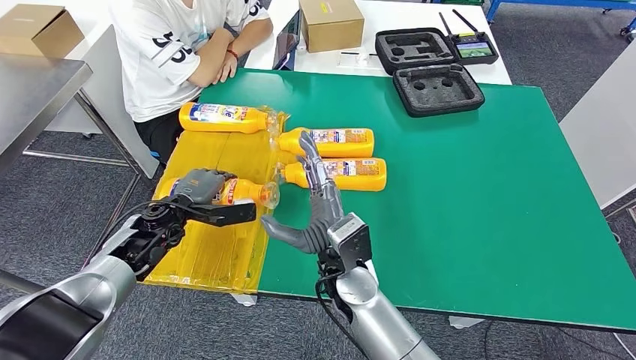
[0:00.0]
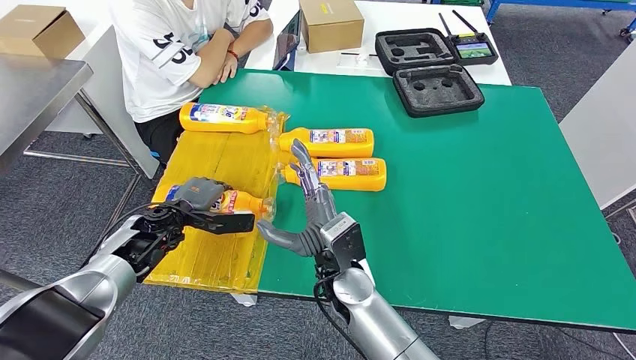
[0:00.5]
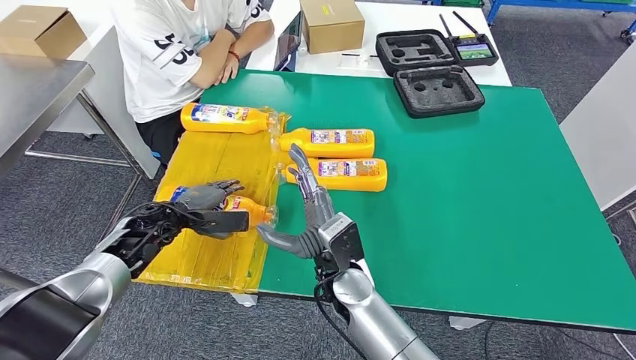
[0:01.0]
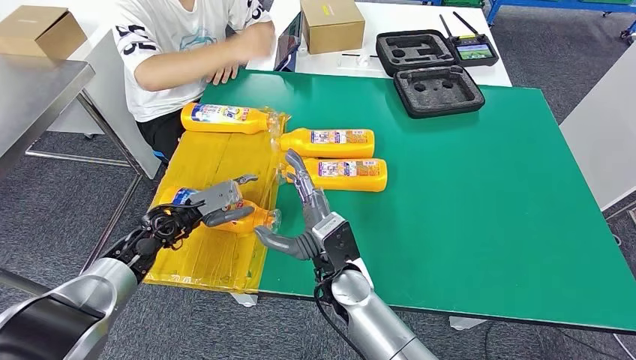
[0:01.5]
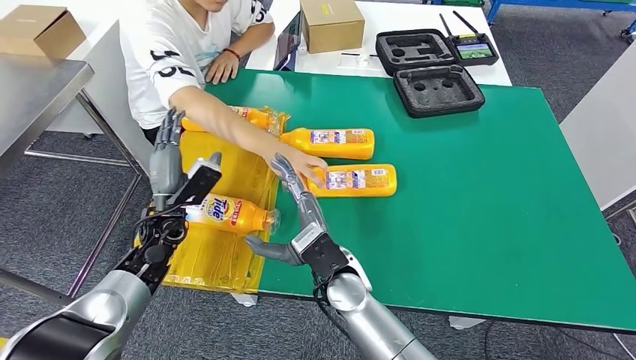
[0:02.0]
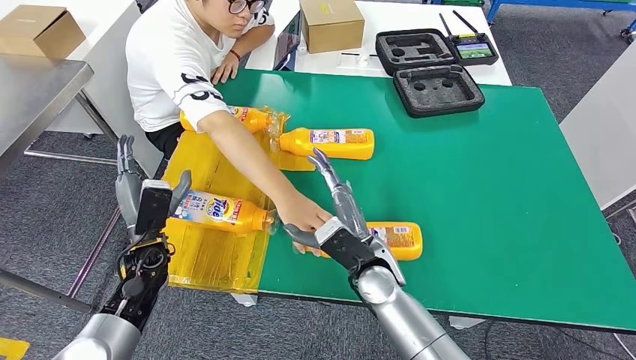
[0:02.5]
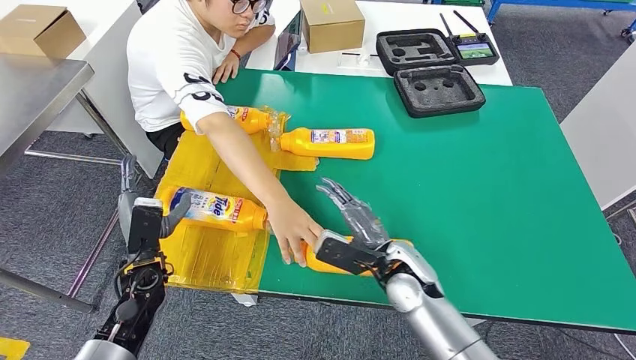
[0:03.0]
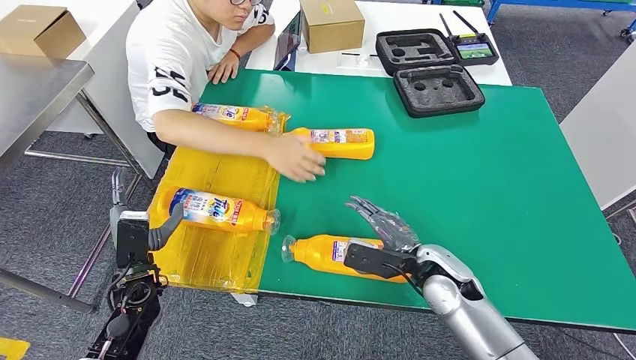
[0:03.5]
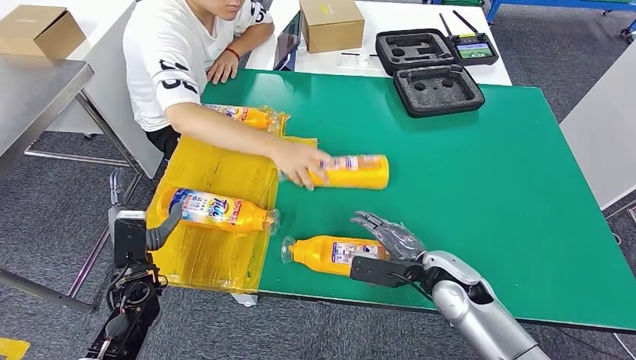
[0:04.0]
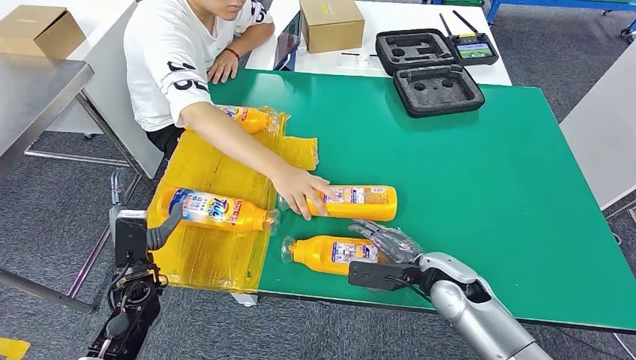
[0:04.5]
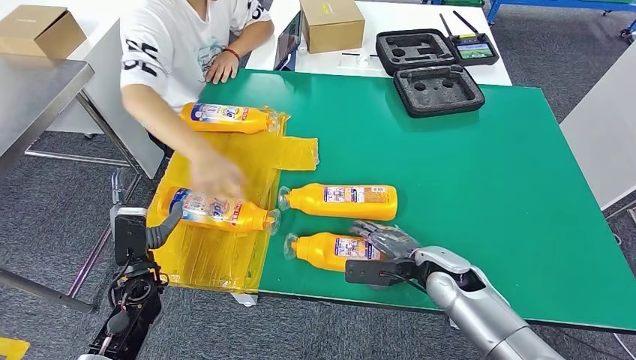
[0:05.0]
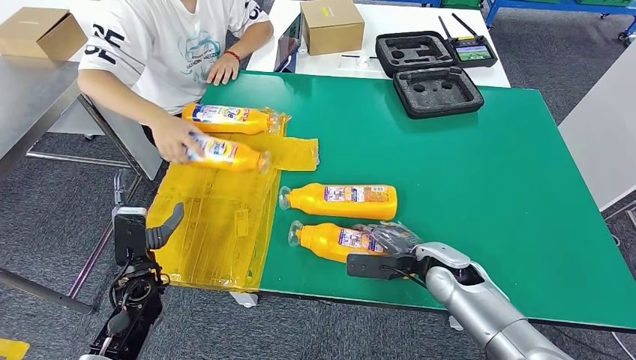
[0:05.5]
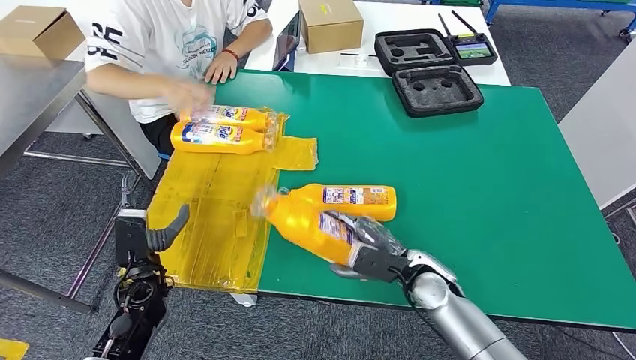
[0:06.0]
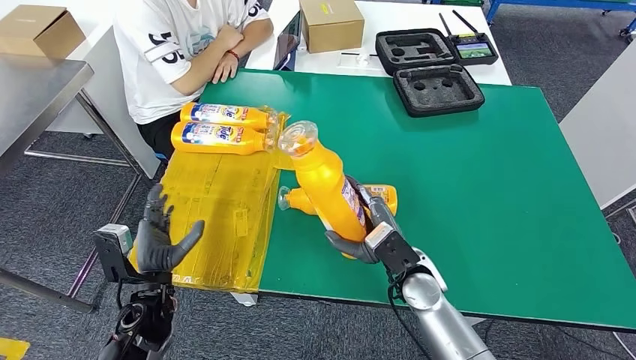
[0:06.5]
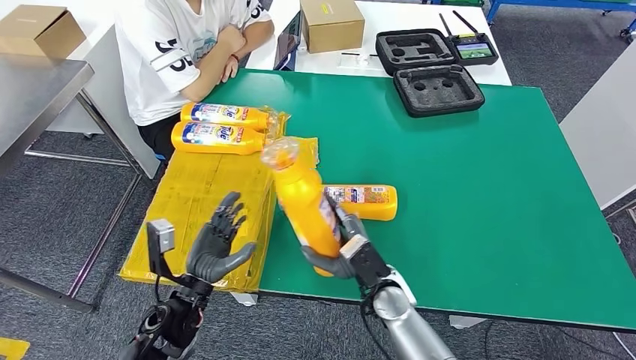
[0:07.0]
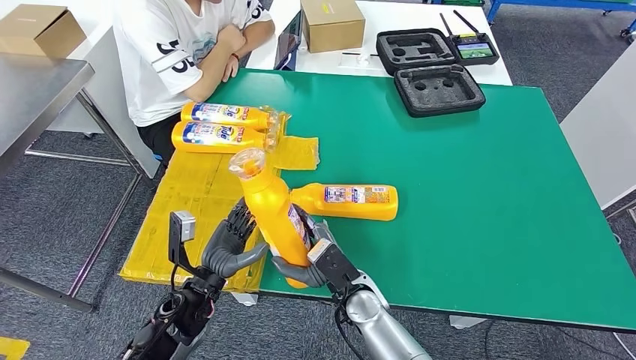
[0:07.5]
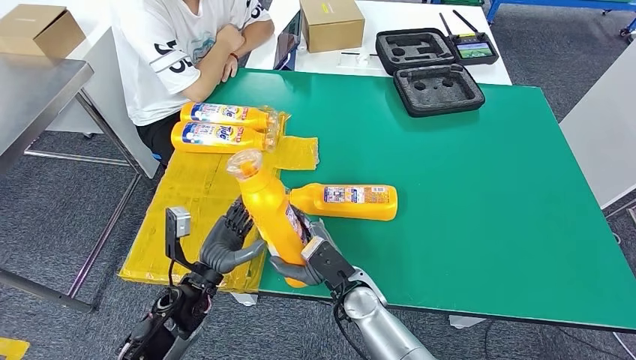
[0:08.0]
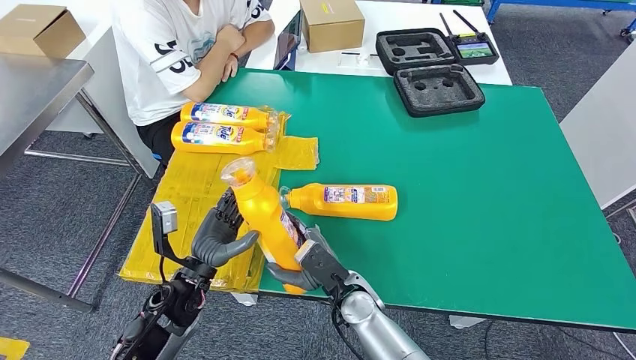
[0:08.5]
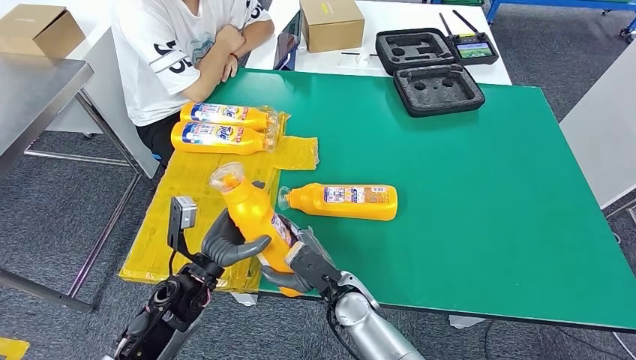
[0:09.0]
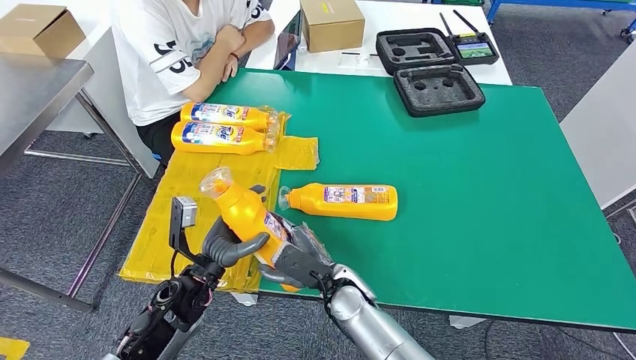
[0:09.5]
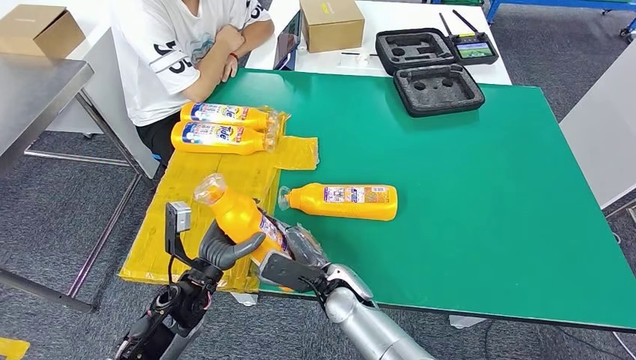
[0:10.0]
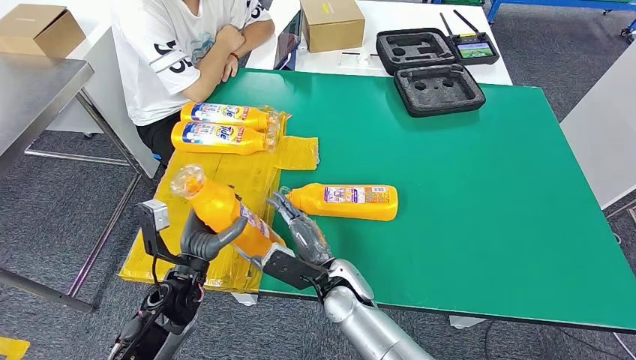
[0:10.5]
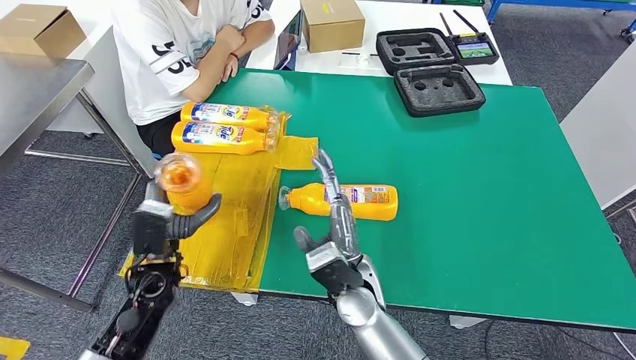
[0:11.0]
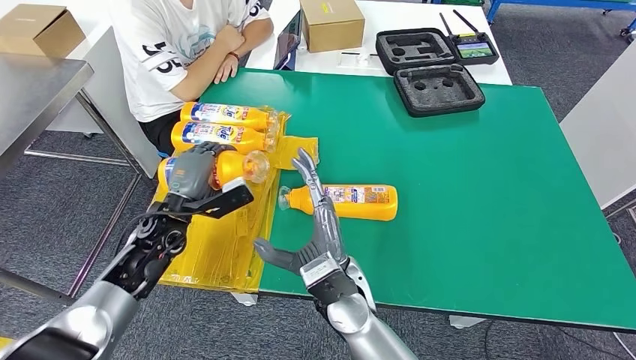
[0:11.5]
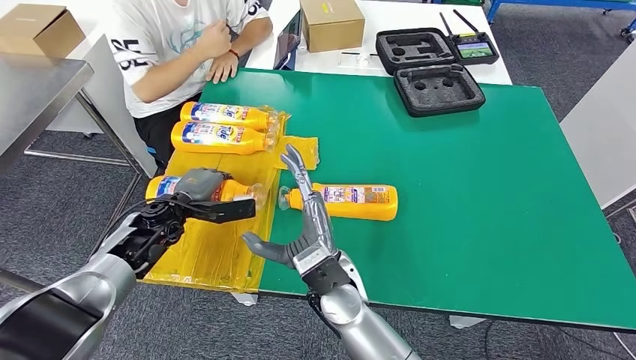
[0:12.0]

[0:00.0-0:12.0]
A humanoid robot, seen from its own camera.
Step, 0:00.0 to 0:02.0: Flip the fast-moving consumer goods bottle to the front side.
Step, 0:02.5 to 0:08.0: Pick up the fast-moving consumer goods bottle from the table.
0:10.0 to 0:12.0: The right hand is displaced upward by roughly 10 cm. Meanwhile the left hand heads forward and to the left, covering roughly 15 cm.

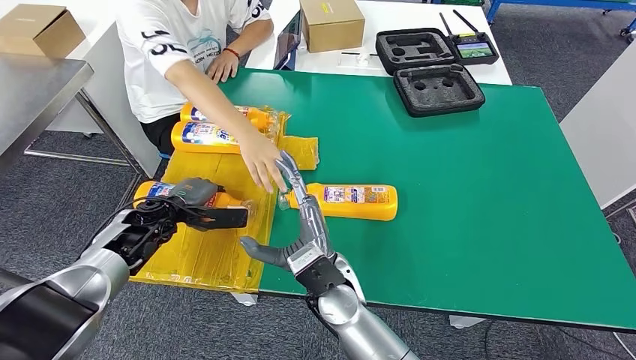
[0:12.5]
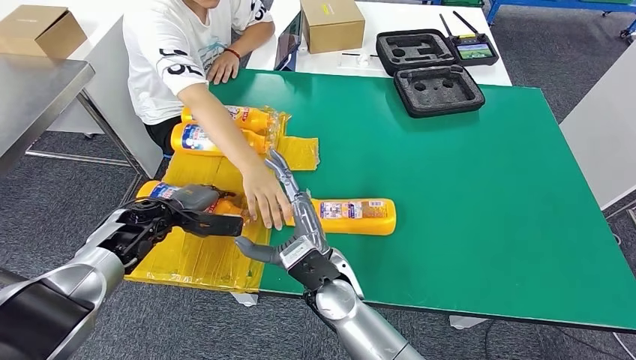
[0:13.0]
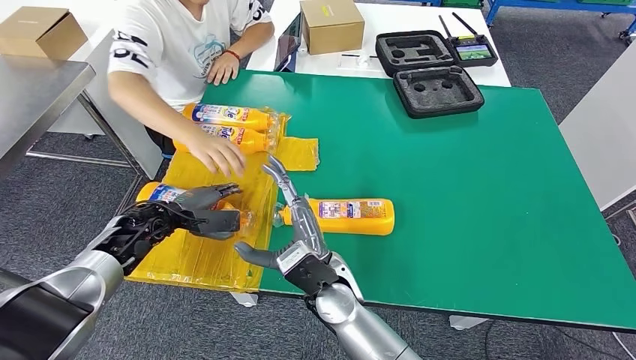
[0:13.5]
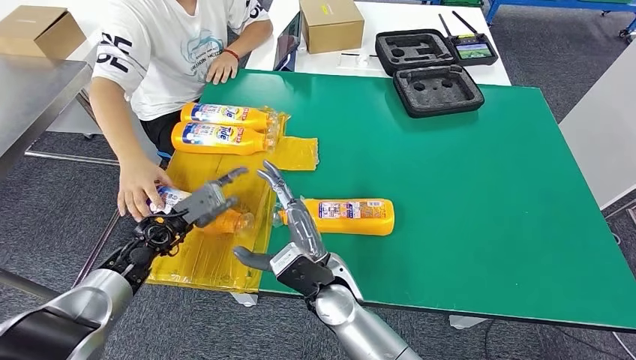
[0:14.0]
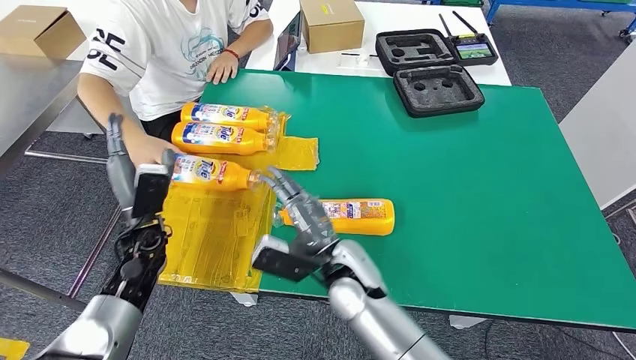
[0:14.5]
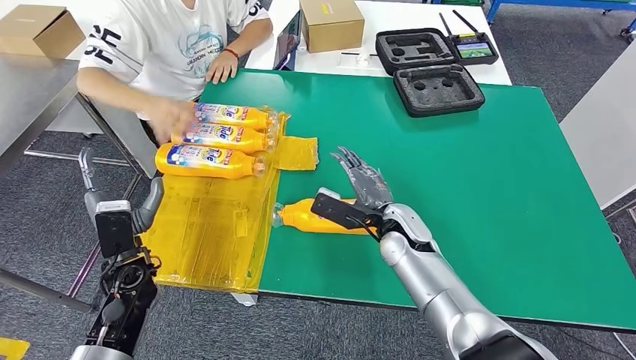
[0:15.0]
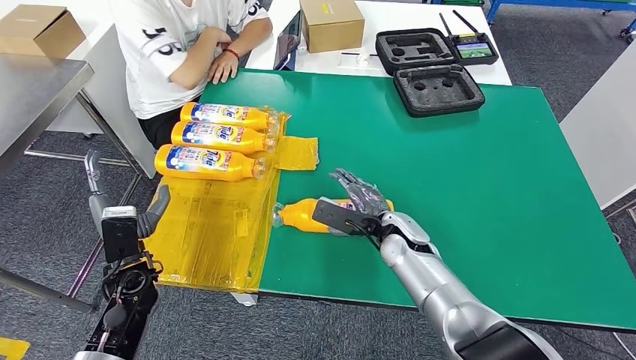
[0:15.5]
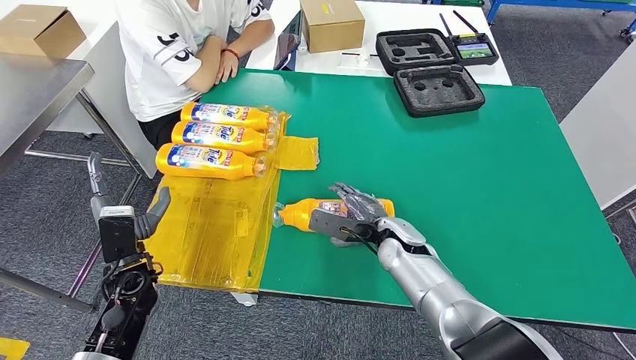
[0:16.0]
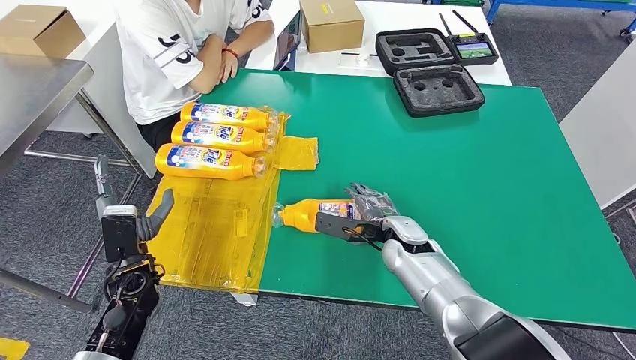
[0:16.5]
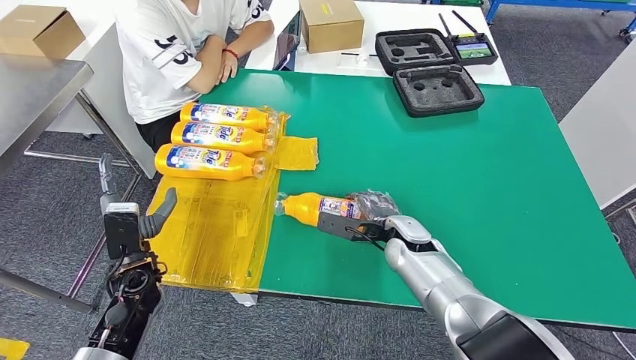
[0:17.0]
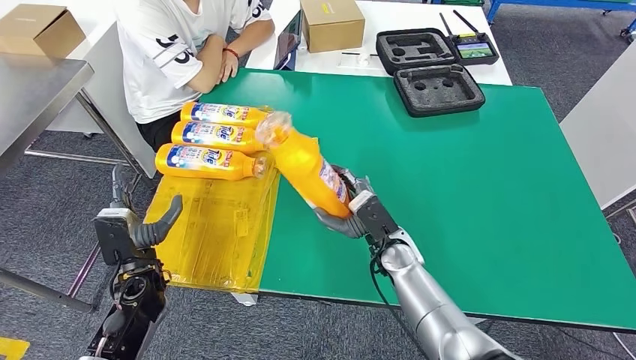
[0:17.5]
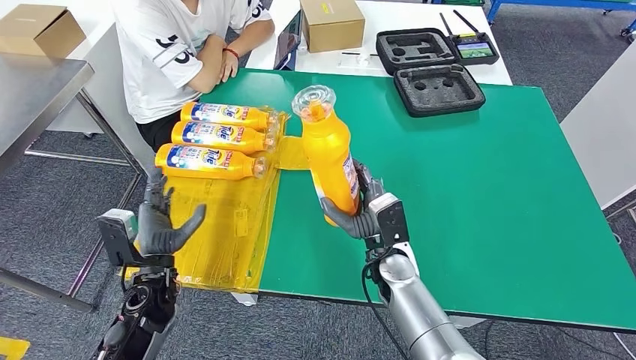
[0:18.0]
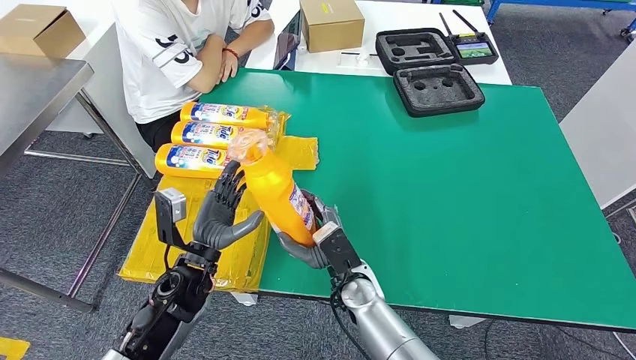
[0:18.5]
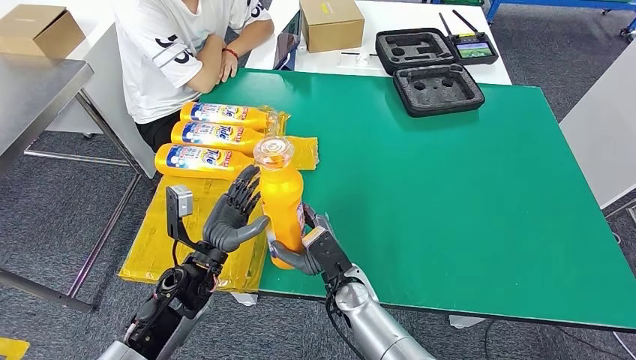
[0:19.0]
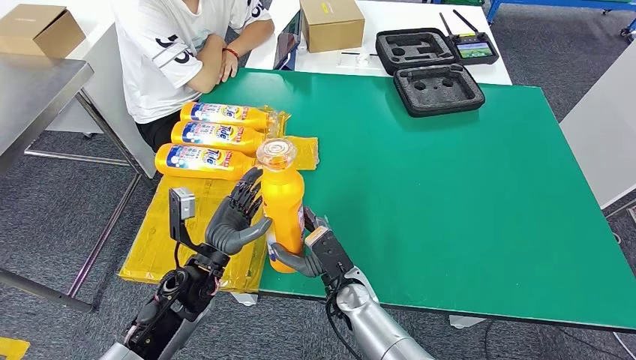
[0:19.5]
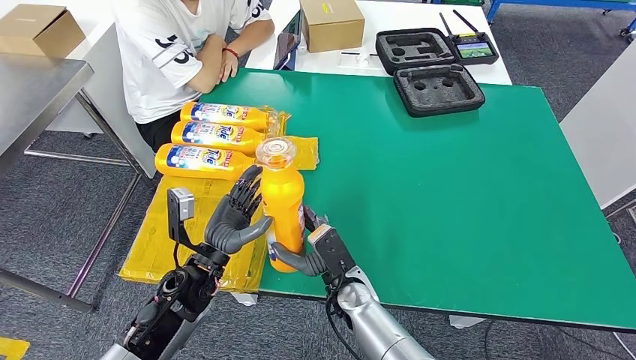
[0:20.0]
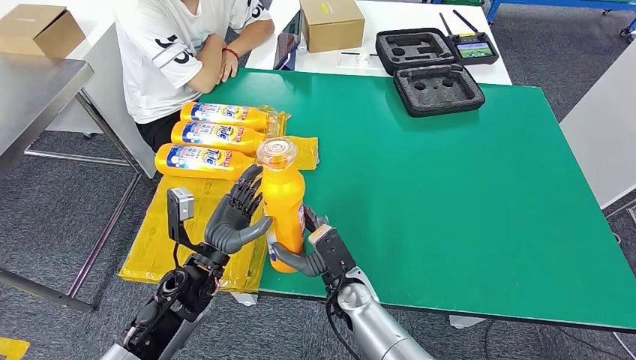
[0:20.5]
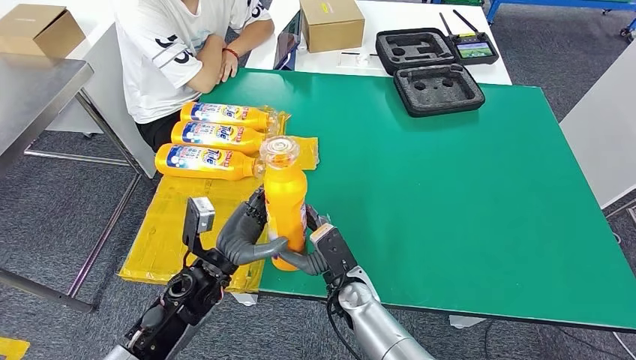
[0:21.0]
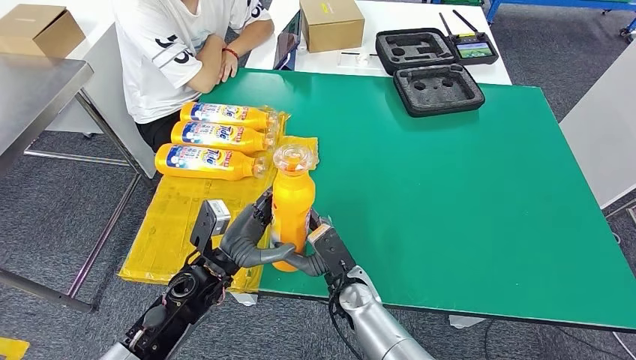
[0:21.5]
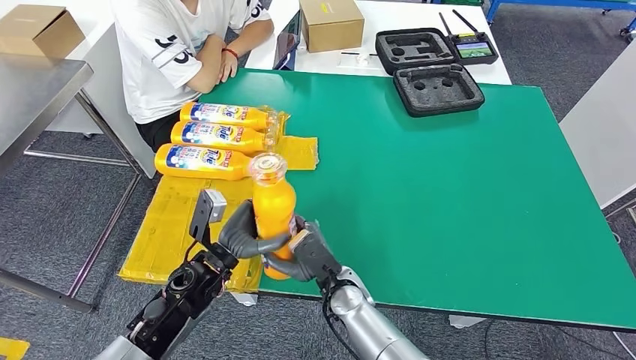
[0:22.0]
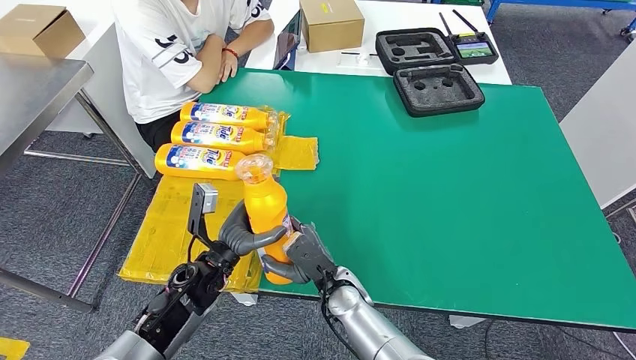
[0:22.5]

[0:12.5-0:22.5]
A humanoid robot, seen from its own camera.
Step, 0:14.0 to 0:18.5: Pick up the fast-moving consumer goods bottle from the table.
0:16.5 to 0:18.5: The right hand goes about 10 cm to the left and backward. Meanwhile the left hand goes approximately 10 cm to the right.
0:18.5 to 0:20.5: There are only small adjustments of the hands.
0:20.5 to 0:22.5: There are only small adjustments of the hands.
